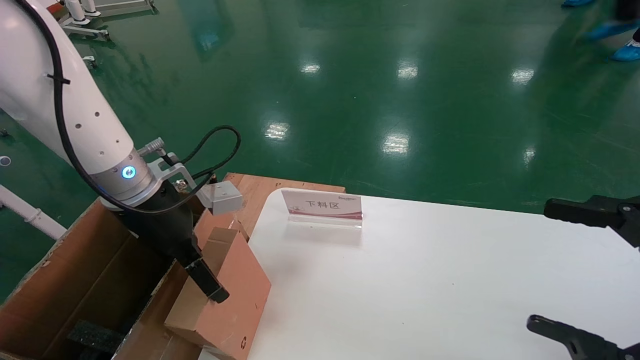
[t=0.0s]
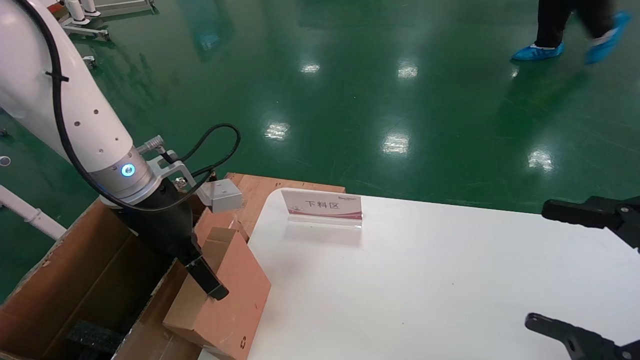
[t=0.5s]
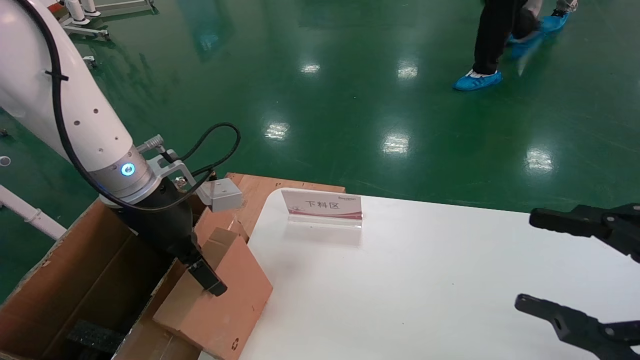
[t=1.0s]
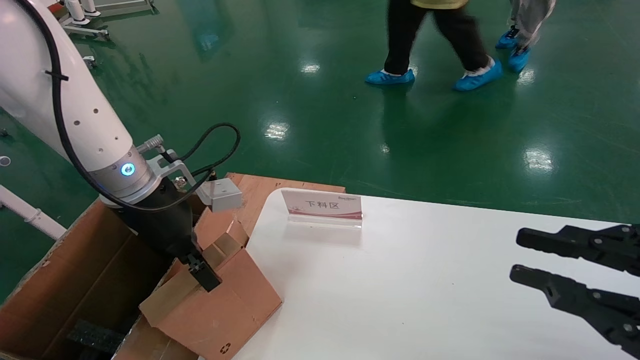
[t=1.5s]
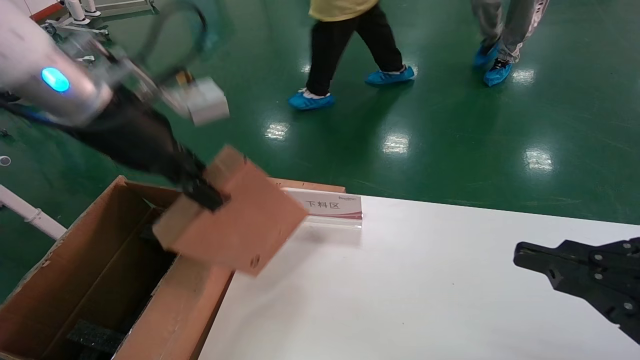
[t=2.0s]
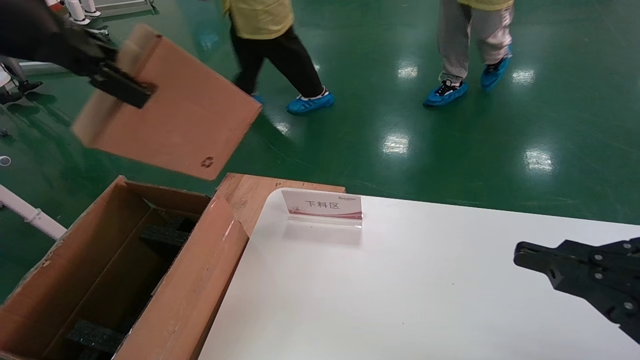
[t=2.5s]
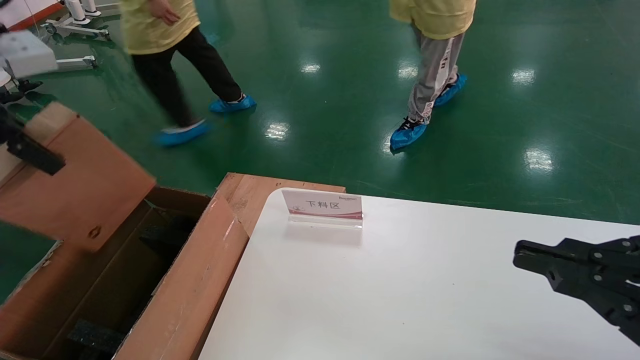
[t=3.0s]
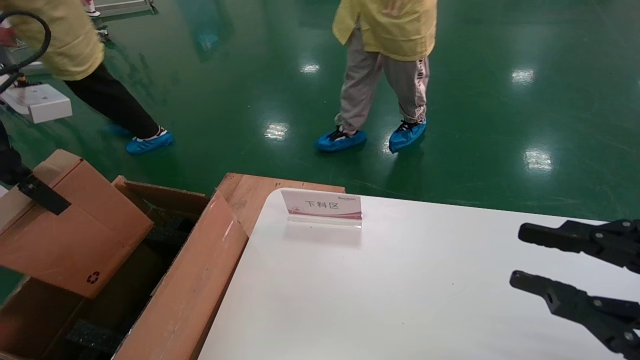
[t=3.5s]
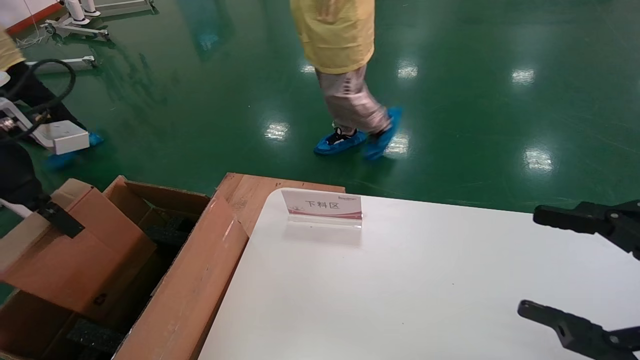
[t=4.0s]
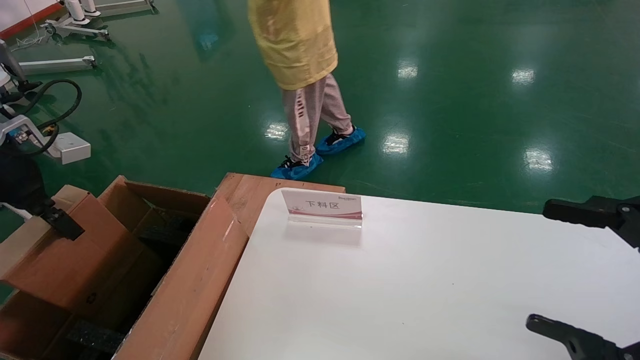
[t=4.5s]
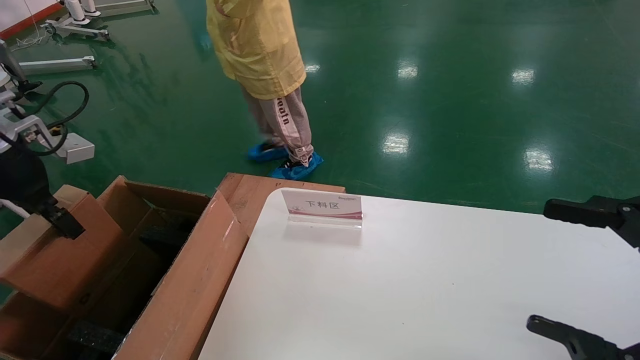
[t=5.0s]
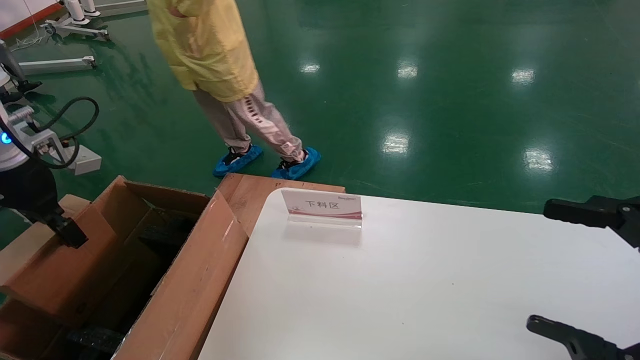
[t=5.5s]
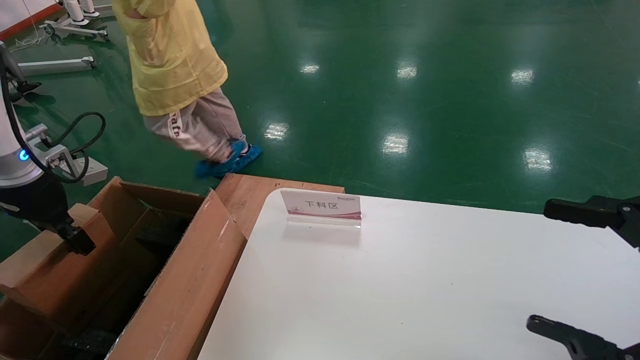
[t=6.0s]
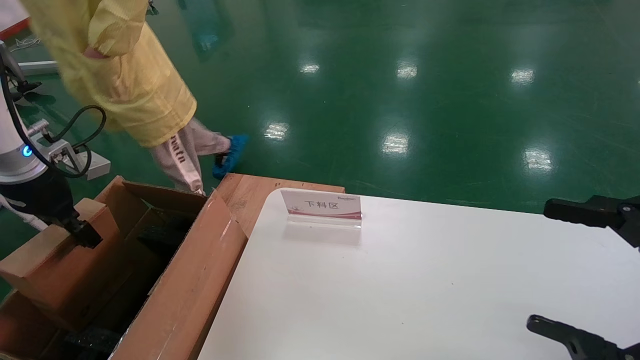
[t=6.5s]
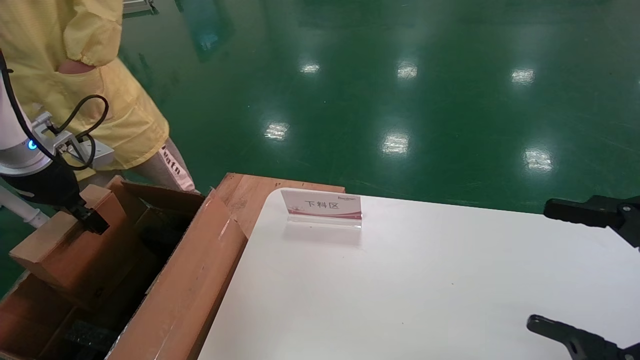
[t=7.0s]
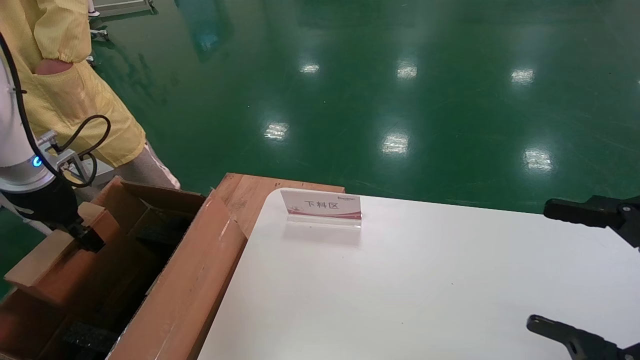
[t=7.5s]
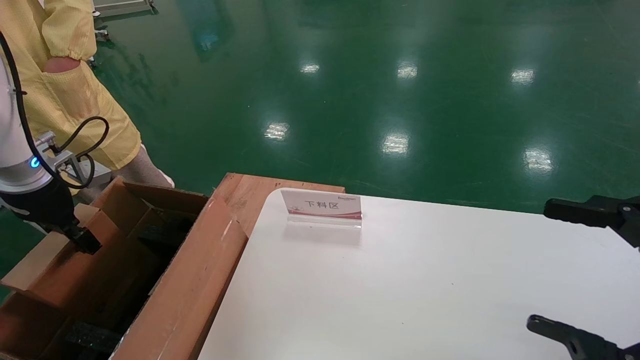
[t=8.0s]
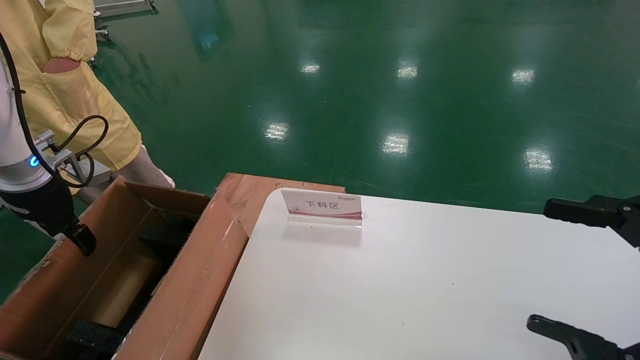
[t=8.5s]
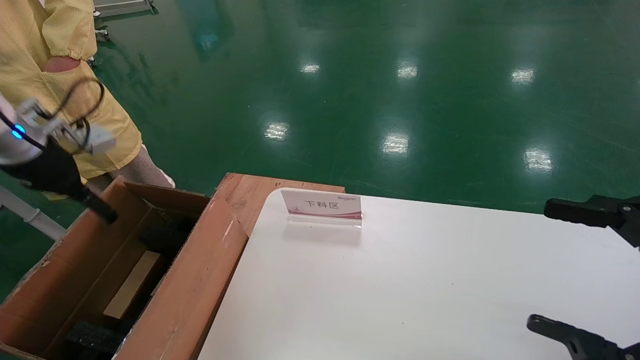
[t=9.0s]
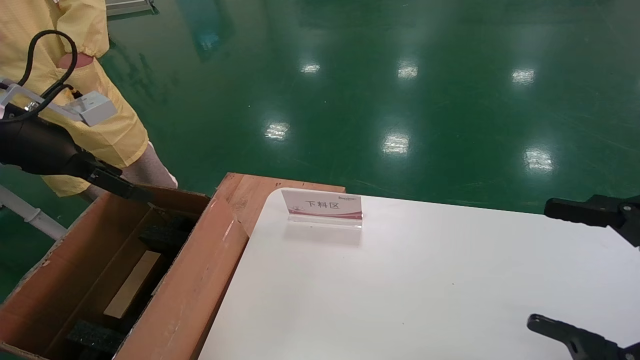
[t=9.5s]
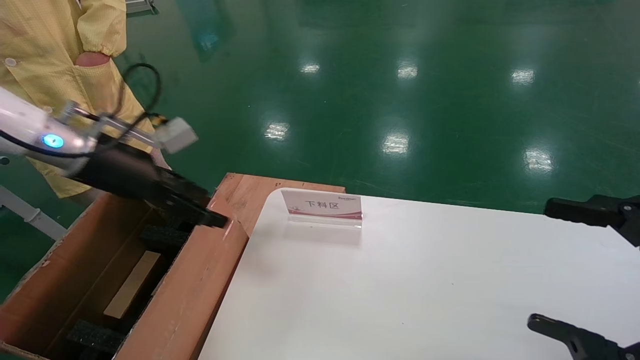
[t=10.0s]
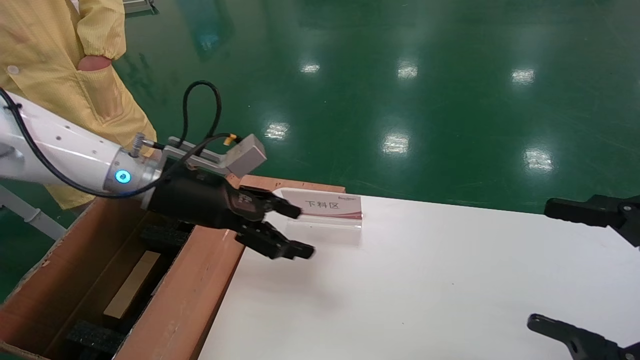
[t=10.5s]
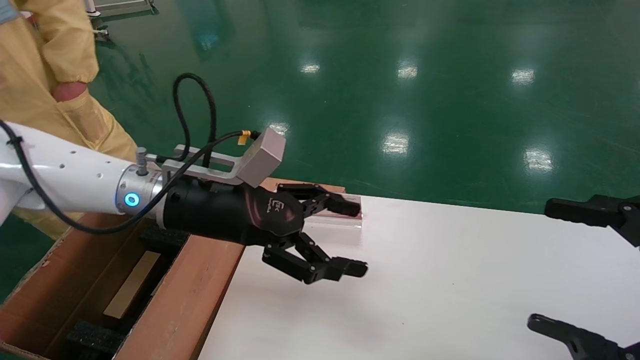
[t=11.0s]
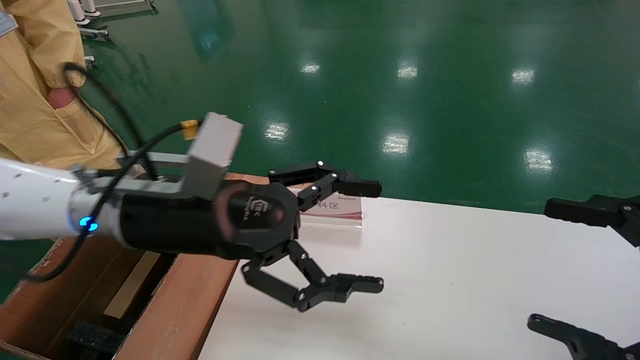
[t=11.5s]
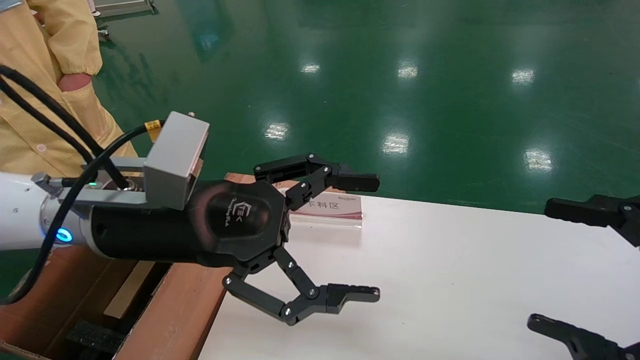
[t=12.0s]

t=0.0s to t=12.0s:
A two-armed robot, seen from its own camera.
Task of the whole recording: pick up the small cardboard box and load it into the large cardboard box.
Step, t=2.0s to t=8.5s: Place the mouse and power cord box into the case.
t=0.0s to t=2.0s: The left gripper goes some 10 cm upward, and closes up, while the right gripper closes its fingers.
t=2.0s to t=4.0s: The right gripper opens up; the left gripper travels to the left by some 15 cm.
t=4.0s to t=6.0s: The left gripper shifts some 10 cm downward and forward. Meanwhile the right gripper opens its fingers.
t=6.0s to t=8.0s: The grippers make only small movements.
t=8.0s to t=10.0s: The left gripper shifts approximately 10 cm to the right, and opens up.
t=10.0s to t=12.0s: The left gripper is displaced to the right and backward by about 20 cm.
